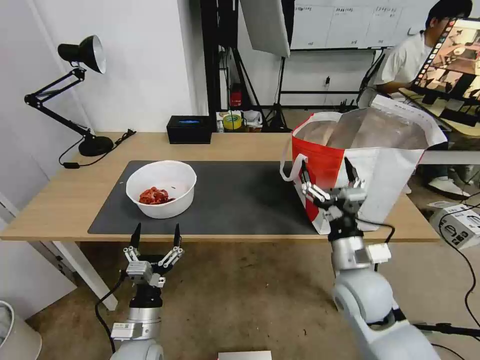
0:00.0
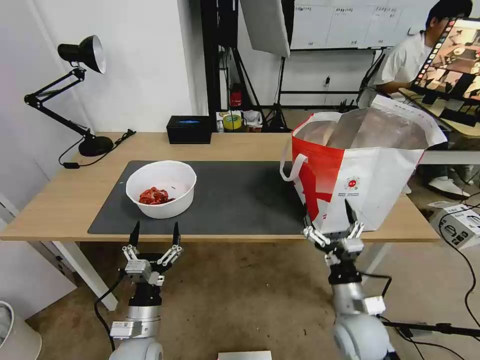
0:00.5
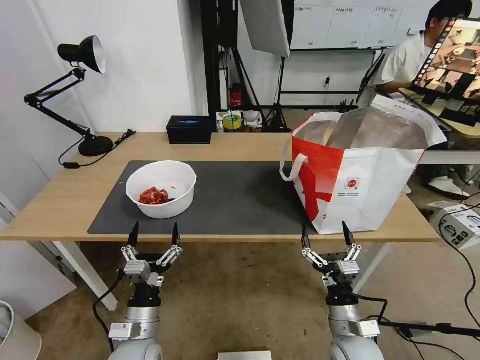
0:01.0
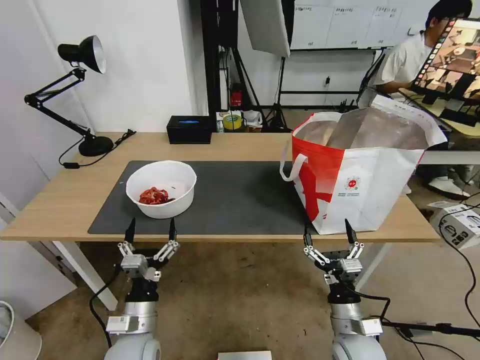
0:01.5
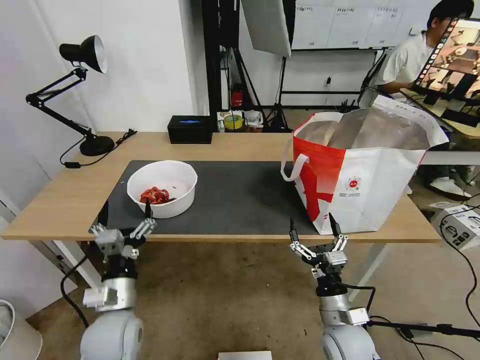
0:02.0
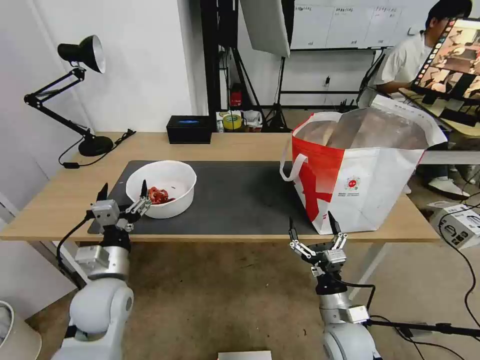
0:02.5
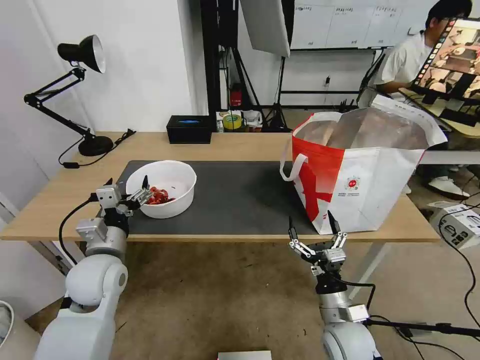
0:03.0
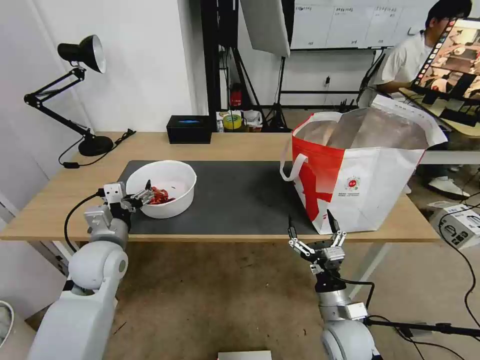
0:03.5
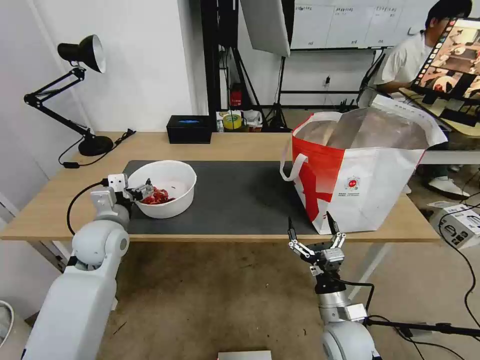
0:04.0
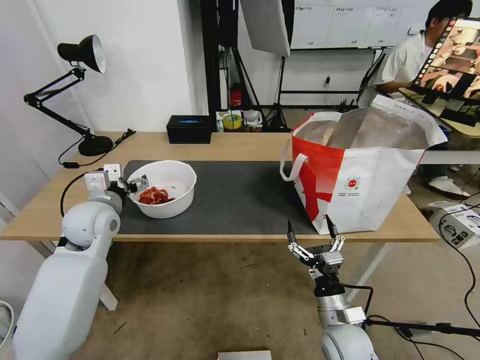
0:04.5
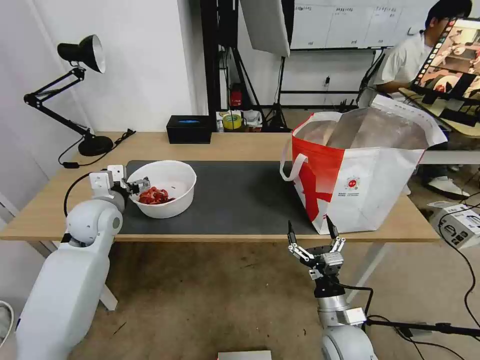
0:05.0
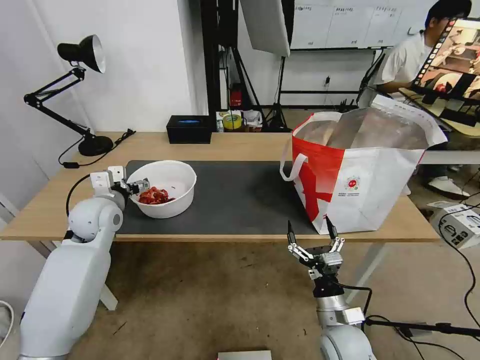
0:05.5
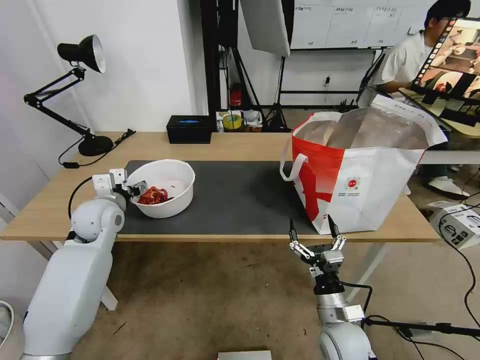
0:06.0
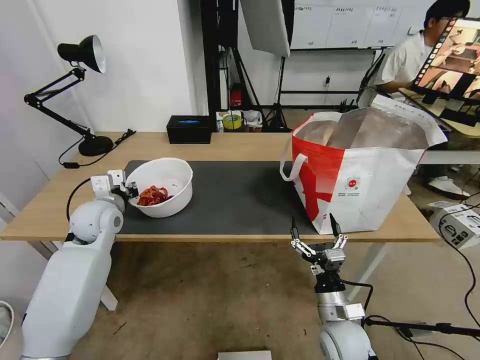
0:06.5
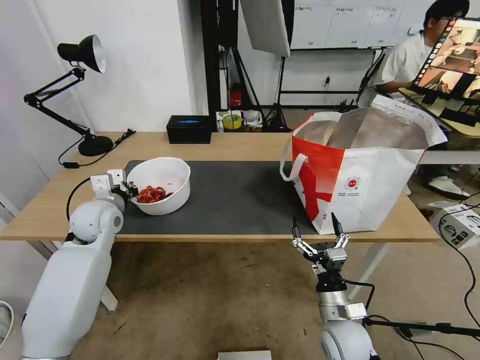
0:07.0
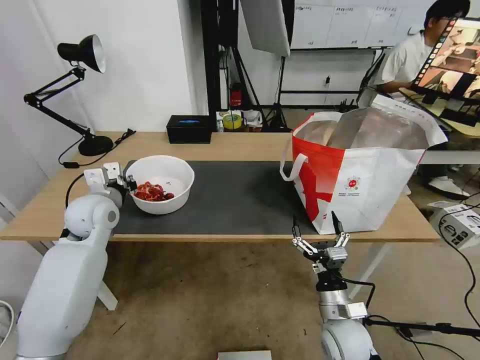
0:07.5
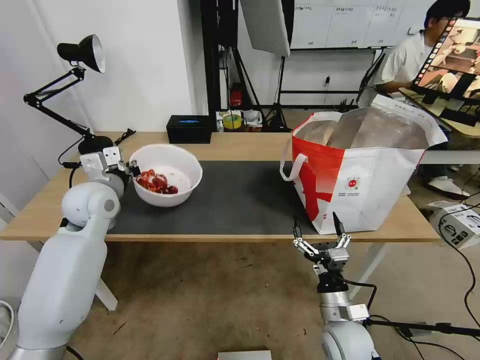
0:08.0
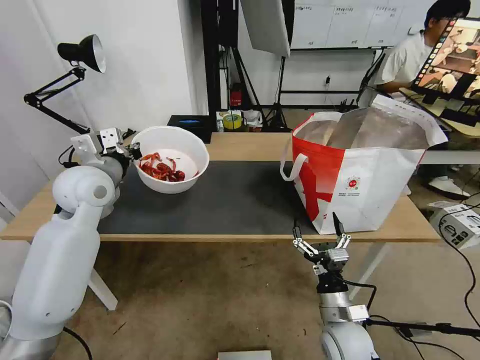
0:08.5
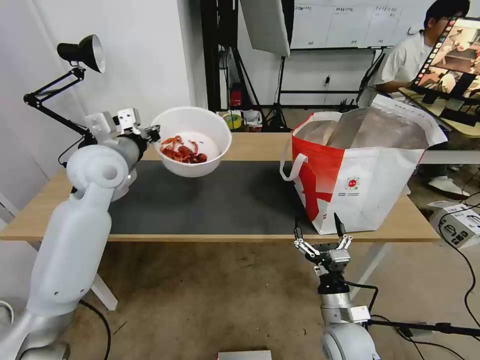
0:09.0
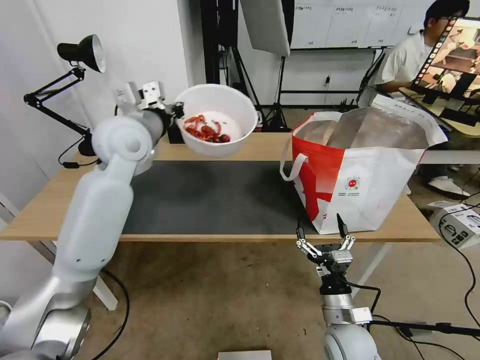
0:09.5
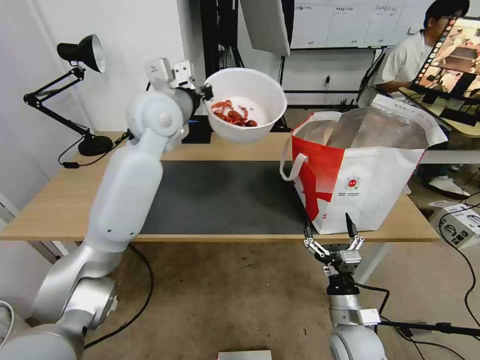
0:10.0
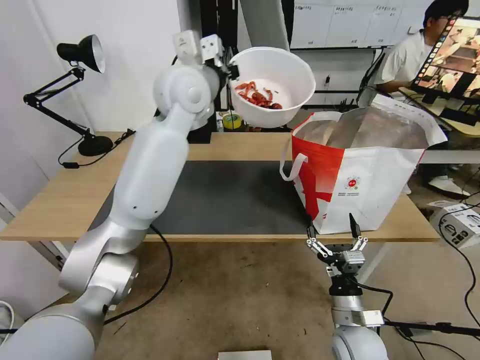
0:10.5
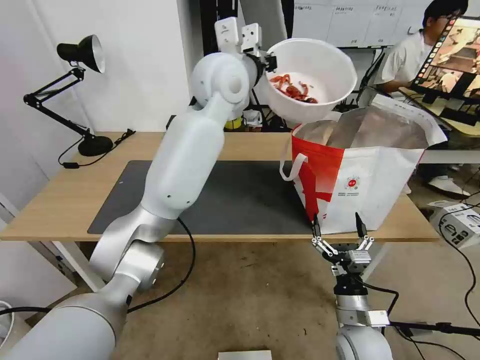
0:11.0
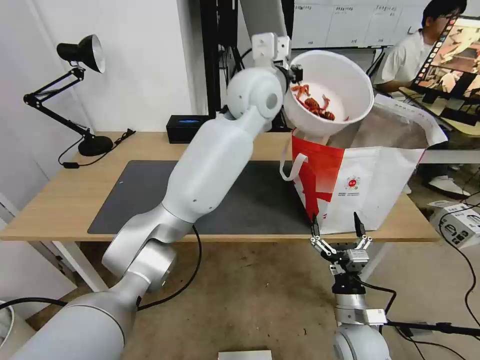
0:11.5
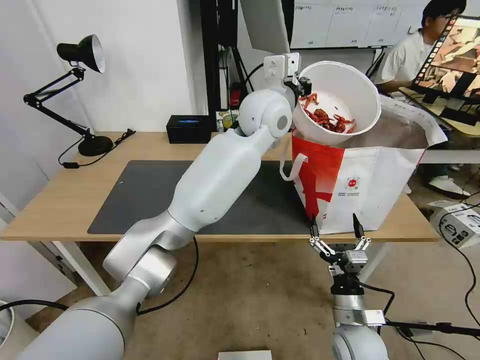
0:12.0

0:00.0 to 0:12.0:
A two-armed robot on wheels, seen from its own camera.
Task of the whole recording: Pick up the trash from the table and place it into the takeout bag.
0:00.0 to 0:02.0: The left gripper goes approximately 5 cm upward; the right gripper moves downward and backward, some 15 cm.
0:02.0 to 0:04.0: The left gripper goes about 15 cm forward and upward.
0:04.0 to 0:06.0: The left gripper heads forward, covering some 5 cm.
0:06.0 to 0:08.0: The left gripper goes approximately 5 cm upward, and closes its fingers.
0:08.0 to 0:10.0: The left gripper heads upward, to the right and forward, covering approximately 25 cm.
0:10.0 to 0:12.0: The left gripper travels to the right by some 20 cm.

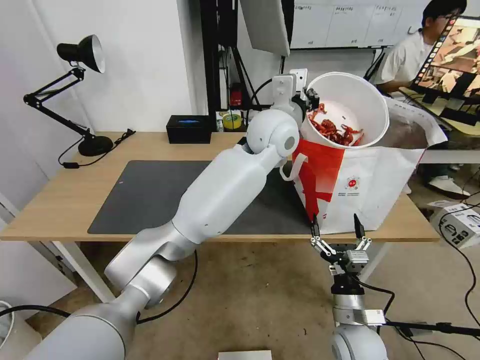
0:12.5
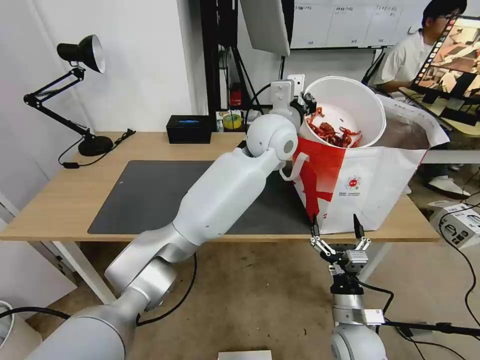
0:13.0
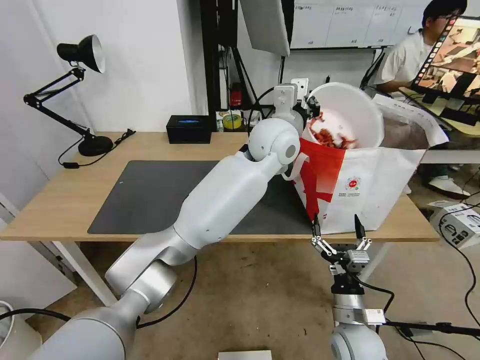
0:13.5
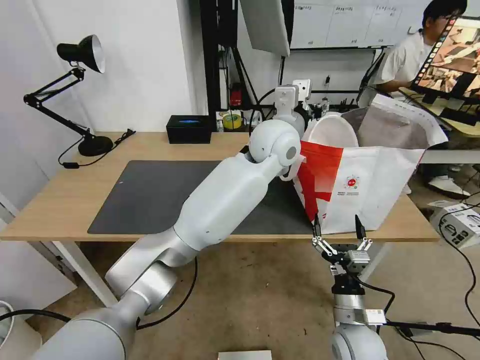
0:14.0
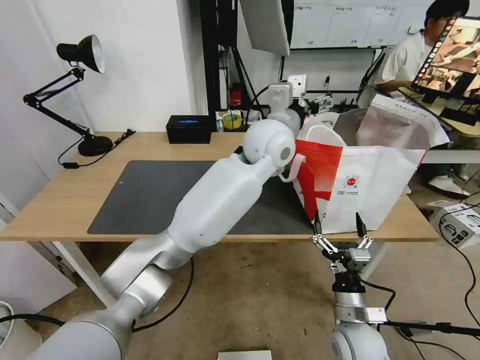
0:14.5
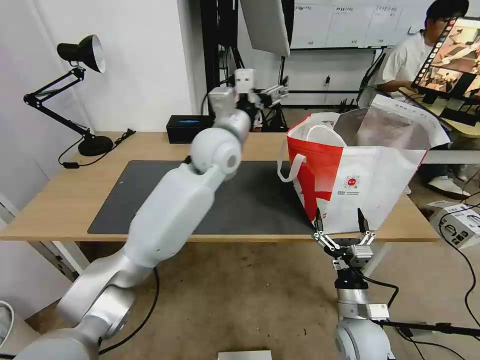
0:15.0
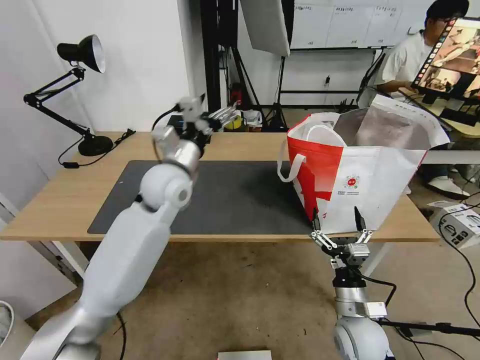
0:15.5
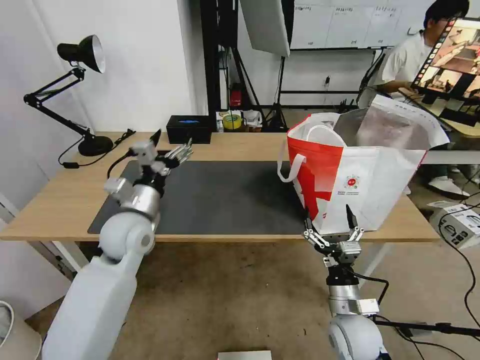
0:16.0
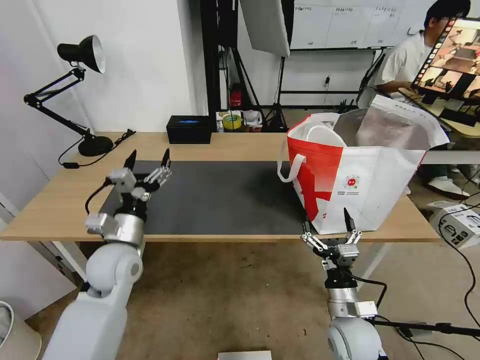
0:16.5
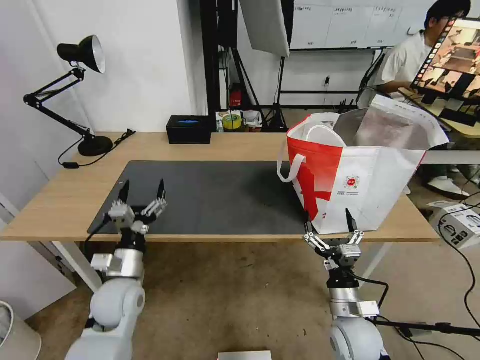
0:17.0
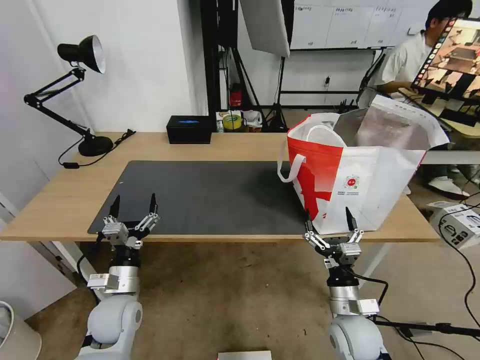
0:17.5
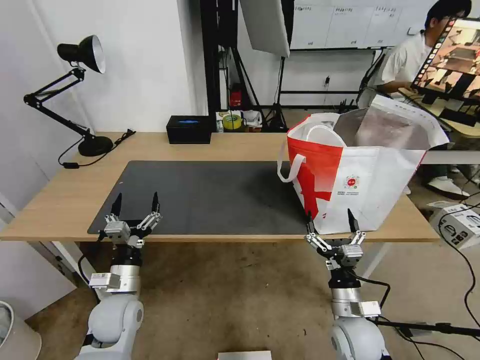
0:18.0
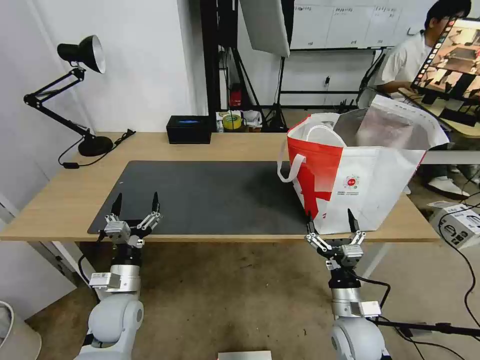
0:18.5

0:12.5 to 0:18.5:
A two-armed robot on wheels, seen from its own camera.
Task of the whole recording: Pick up the trash from the table and place it into the takeout bag.
0:12.5 to 0:14.5: The left gripper opens its fingers.
0:14.5 to 0:16.5: The left gripper goes roughly 40 cm to the left, downward and backward.
0:16.5 to 0:18.5: The left gripper travels downward and backward by about 15 cm.

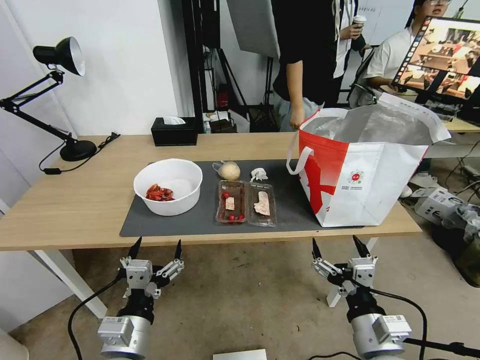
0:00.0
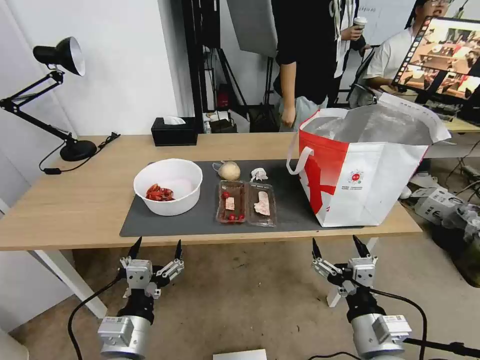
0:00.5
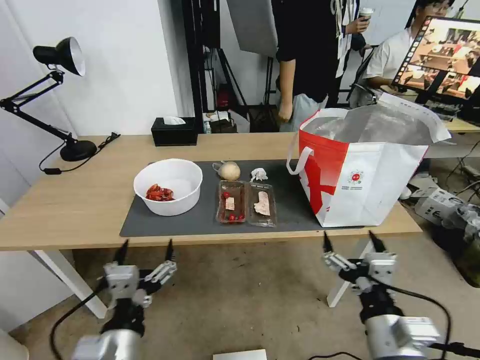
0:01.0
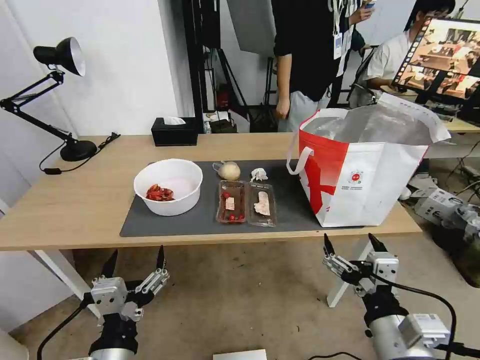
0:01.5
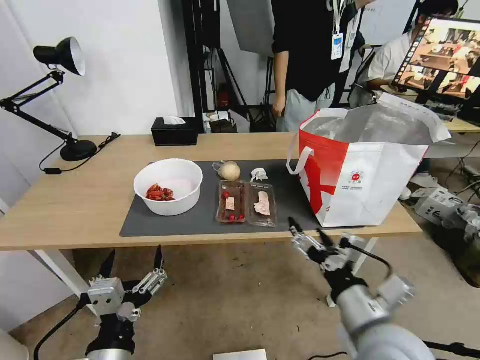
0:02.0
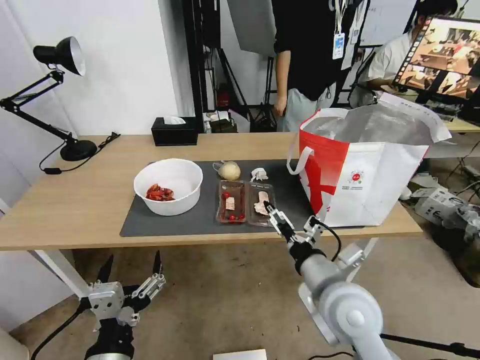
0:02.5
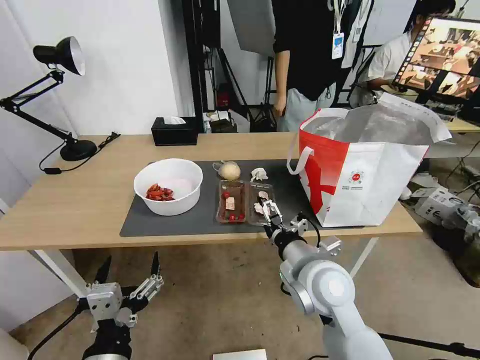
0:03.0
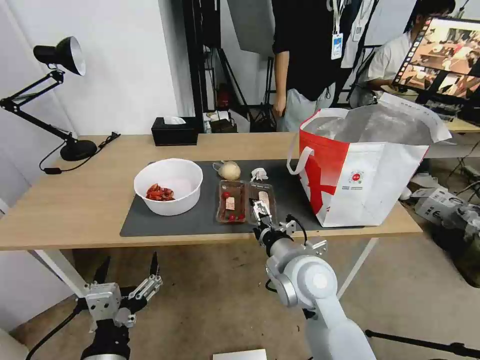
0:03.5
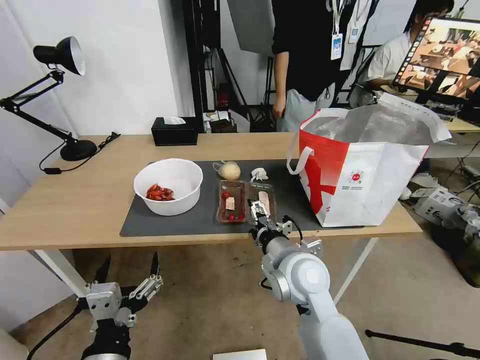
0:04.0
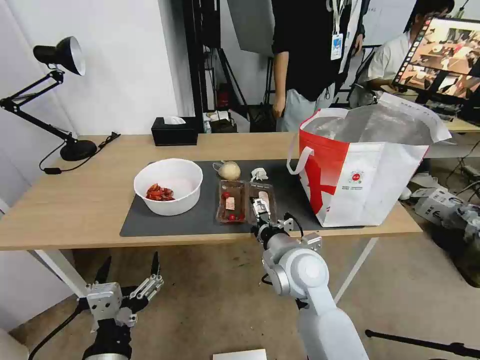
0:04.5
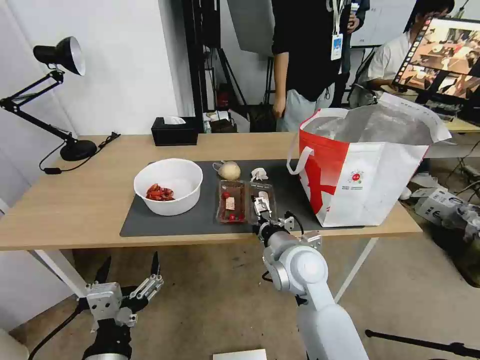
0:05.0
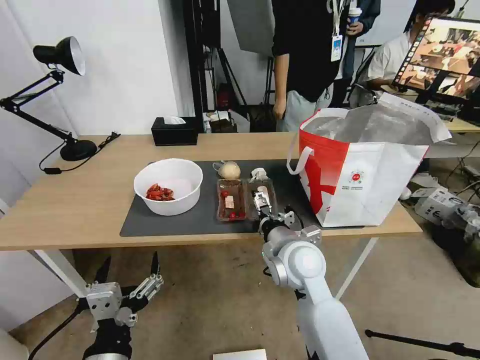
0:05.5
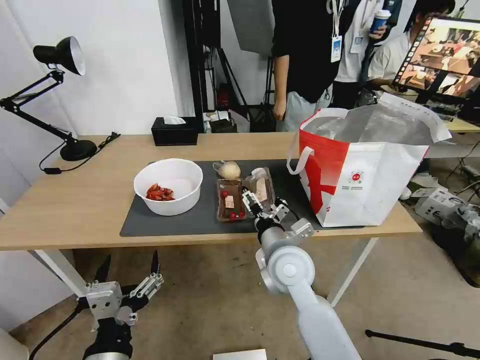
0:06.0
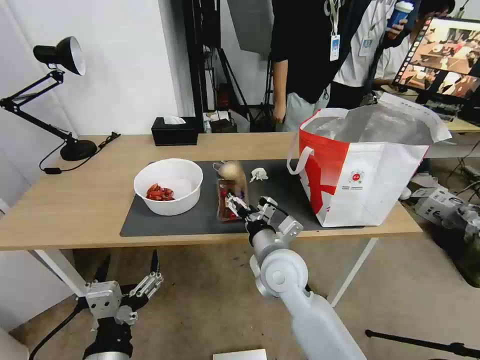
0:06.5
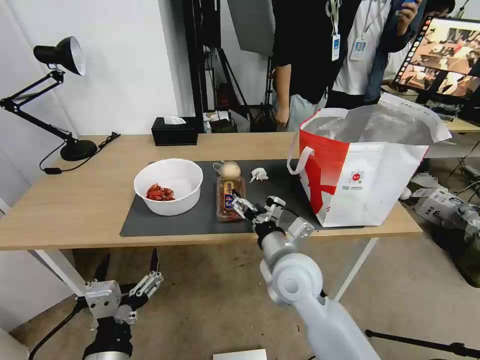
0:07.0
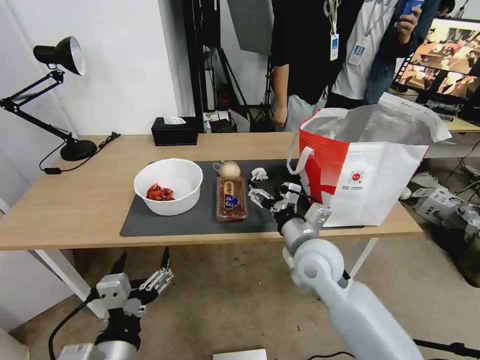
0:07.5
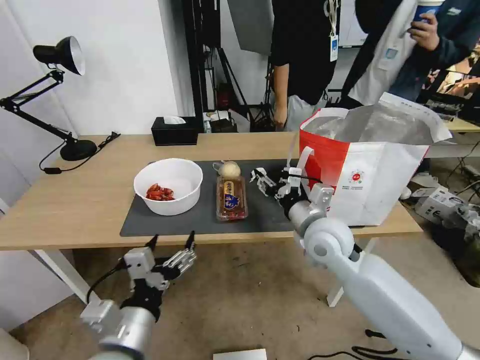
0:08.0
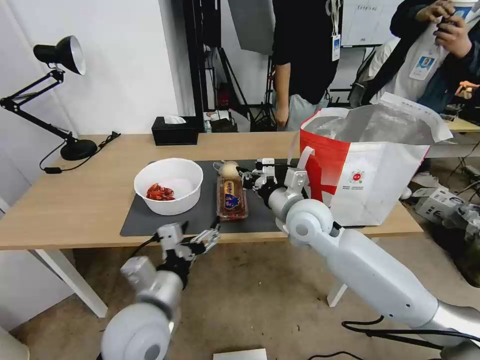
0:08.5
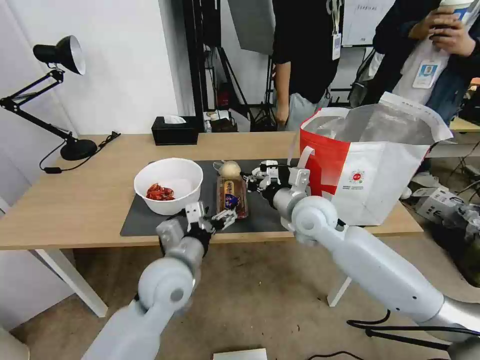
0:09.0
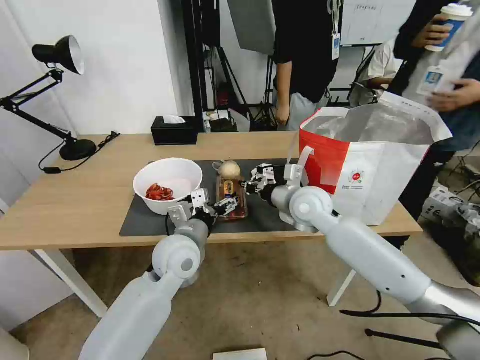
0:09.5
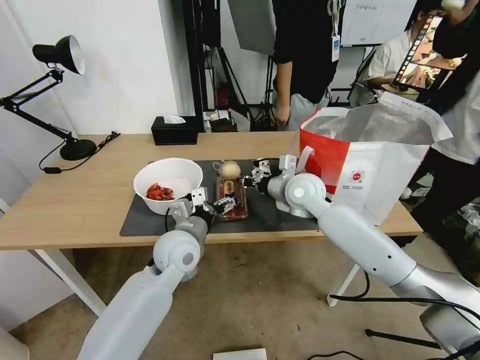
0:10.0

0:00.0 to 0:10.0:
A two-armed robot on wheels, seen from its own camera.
Task of the whole recording: Pick up the trash from the table and place it into the takeout bag.
0:02.0 to 0:04.0: The right gripper goes approximately 15 cm forward and to the left.
0:06.0 to 0:08.0: The left gripper shifts some 5 cm forward. The right gripper is displaced to the right by some 10 cm, and closes.
0:08.0 to 0:10.0: The left gripper moves forward, about 20 cm; the right gripper shifts some 10 cm forward, and closes.
